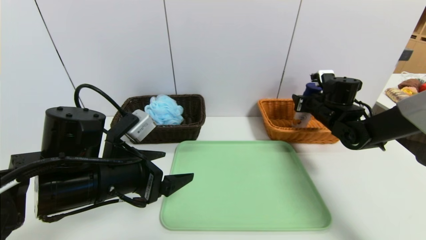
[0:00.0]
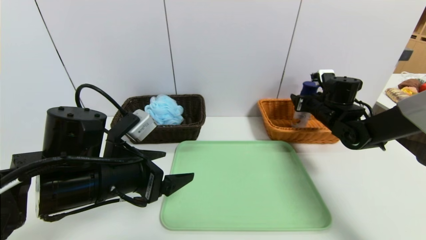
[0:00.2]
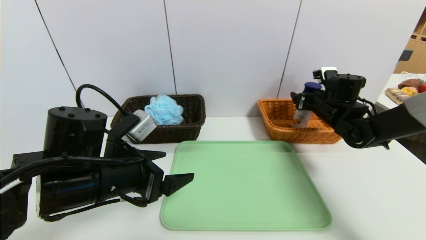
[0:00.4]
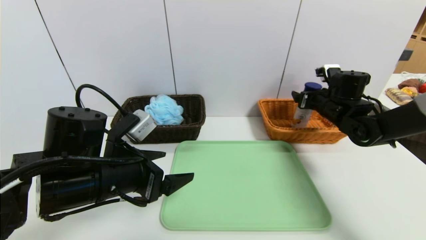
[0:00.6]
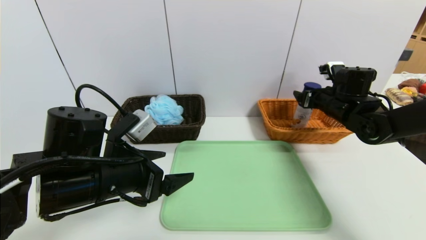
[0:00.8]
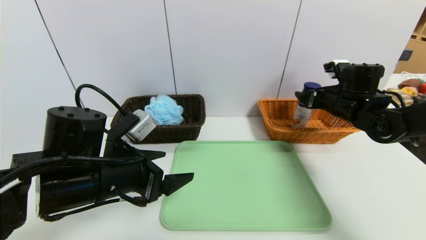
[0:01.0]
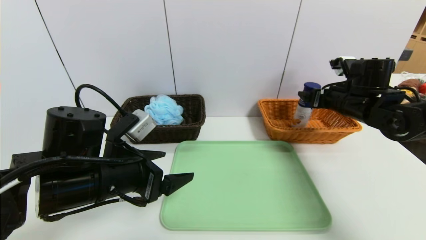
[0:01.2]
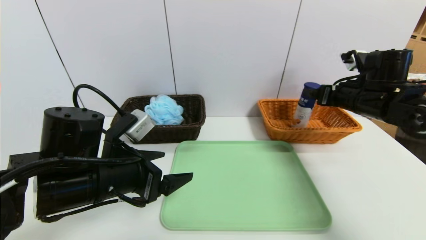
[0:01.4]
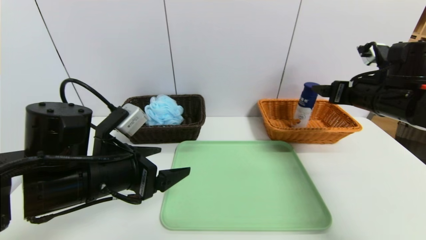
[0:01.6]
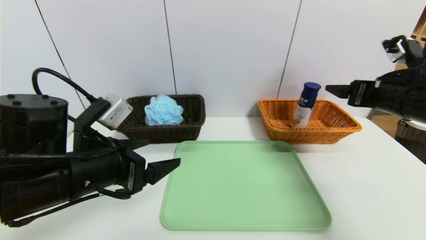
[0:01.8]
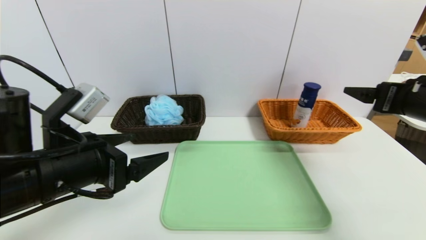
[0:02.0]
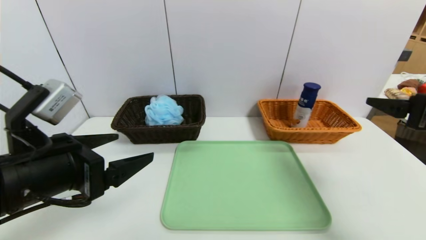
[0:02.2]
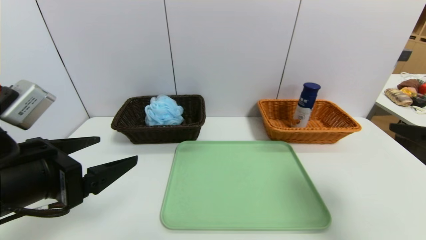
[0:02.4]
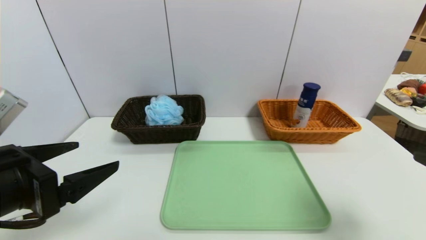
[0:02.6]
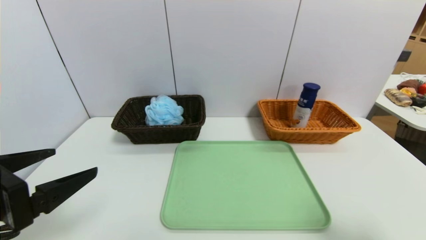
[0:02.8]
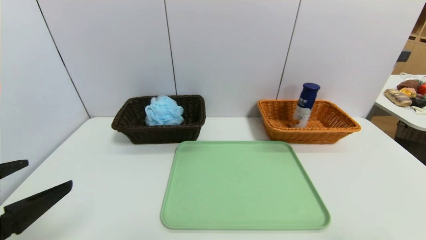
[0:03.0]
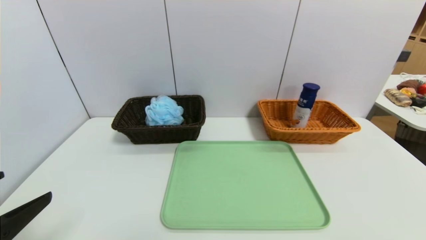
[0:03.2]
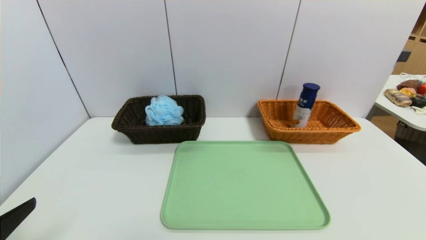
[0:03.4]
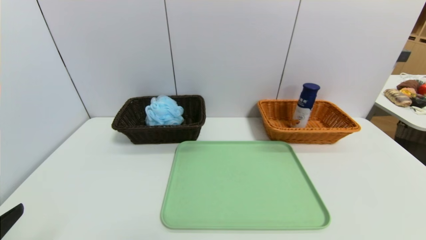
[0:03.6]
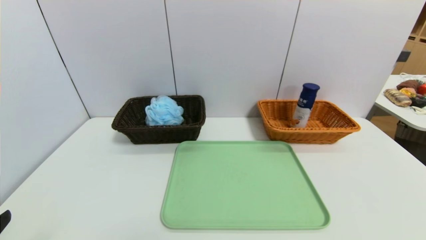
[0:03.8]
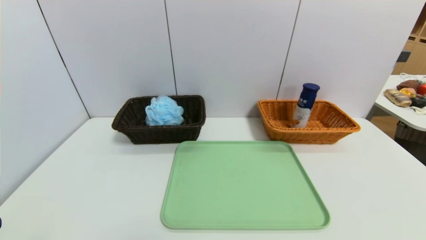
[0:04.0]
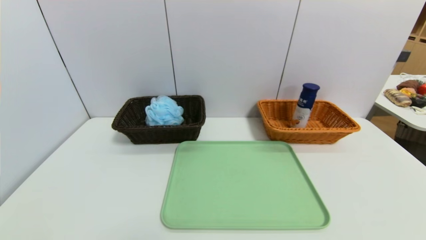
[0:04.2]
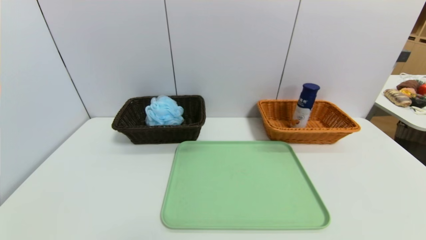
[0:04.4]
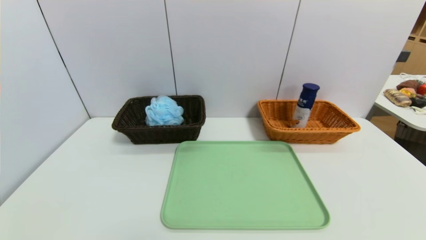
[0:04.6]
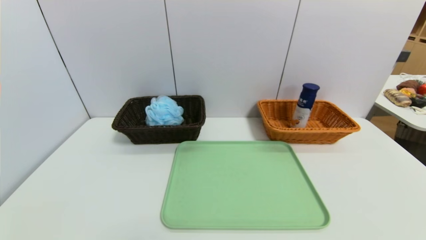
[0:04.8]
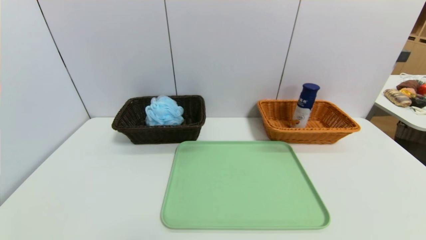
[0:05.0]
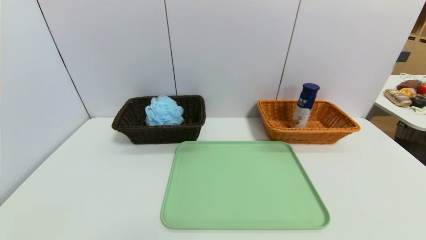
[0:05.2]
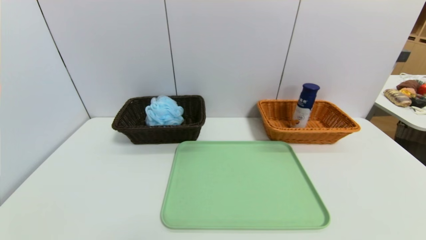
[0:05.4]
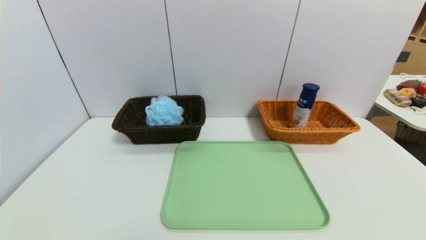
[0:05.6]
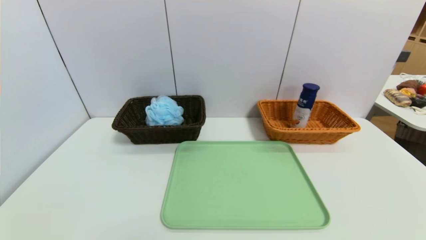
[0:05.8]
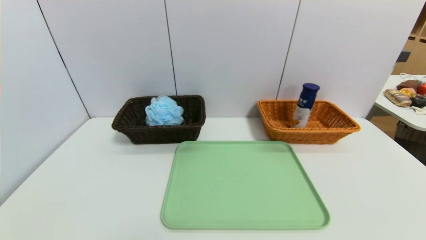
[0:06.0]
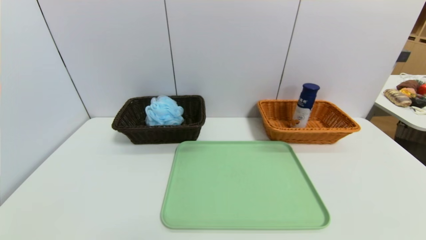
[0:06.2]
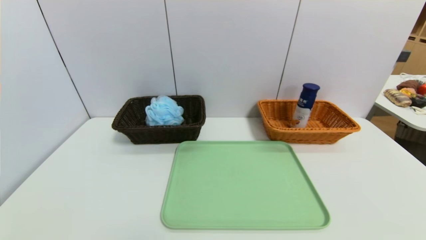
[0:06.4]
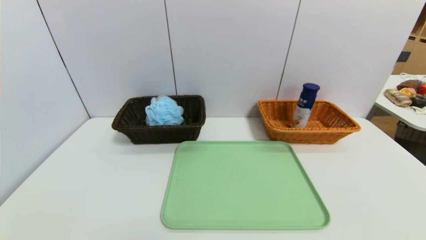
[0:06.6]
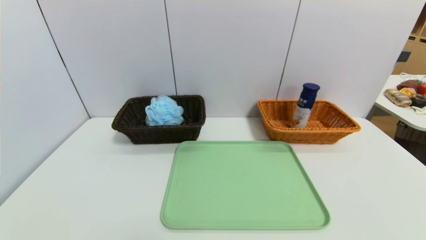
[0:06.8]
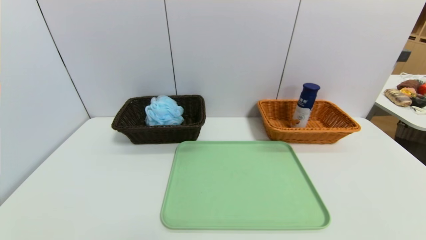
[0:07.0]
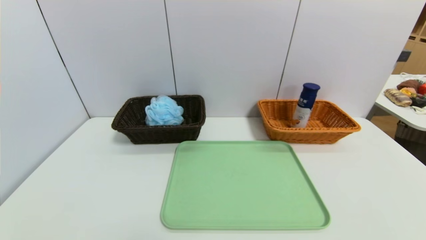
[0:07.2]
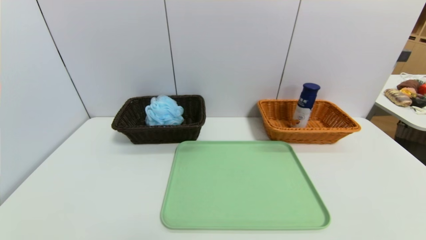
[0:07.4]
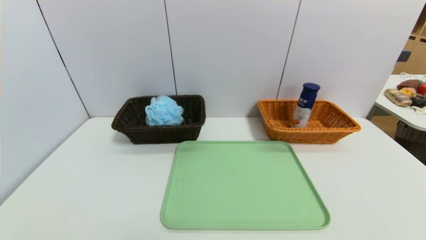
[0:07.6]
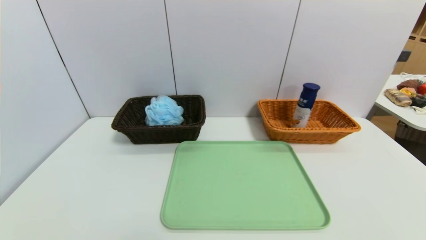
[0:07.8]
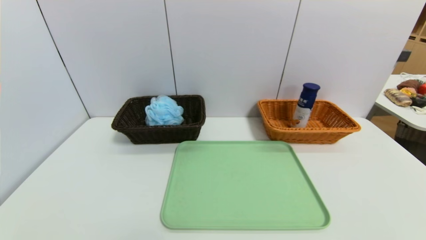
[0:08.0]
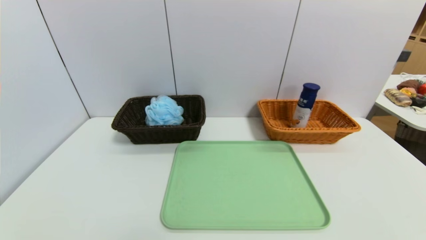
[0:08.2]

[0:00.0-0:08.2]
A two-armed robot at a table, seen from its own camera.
Task of the whole recording: place the food in the right basket with the right gripper, and place the non food items in the left basket with the left gripper.
0:00.0 to 0:01.6: The right gripper travels backward and upward by some 15 cm, and opens.
0:01.6 to 0:03.2: The left gripper travels backward and to the left by approximately 20 cm. The right gripper heads backward, covering some 35 cm.
0:03.2 to 0:05.0: The left gripper moves backward and downward, approximately 10 cm.

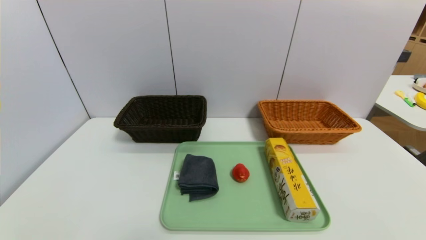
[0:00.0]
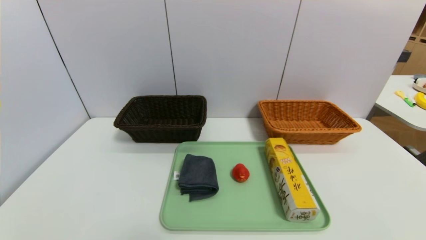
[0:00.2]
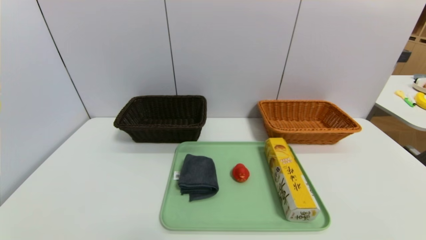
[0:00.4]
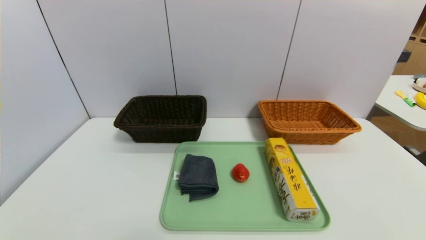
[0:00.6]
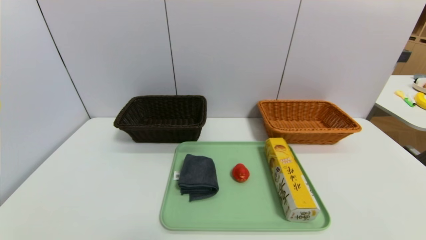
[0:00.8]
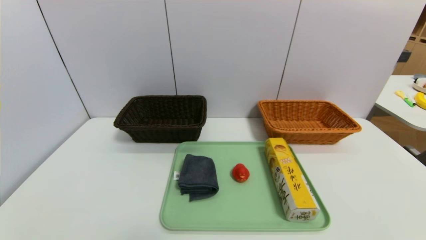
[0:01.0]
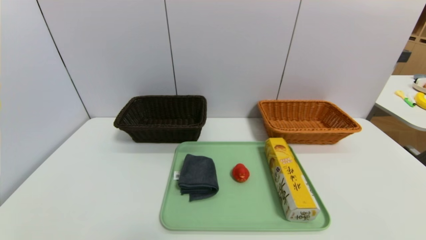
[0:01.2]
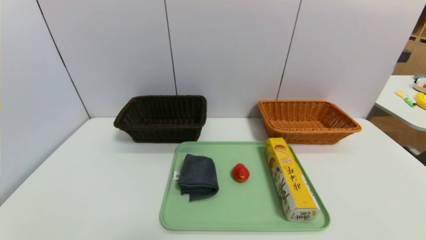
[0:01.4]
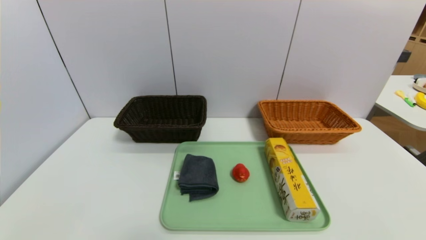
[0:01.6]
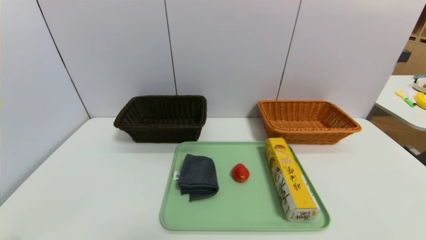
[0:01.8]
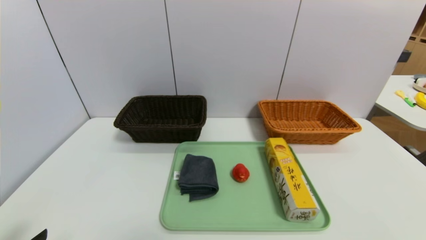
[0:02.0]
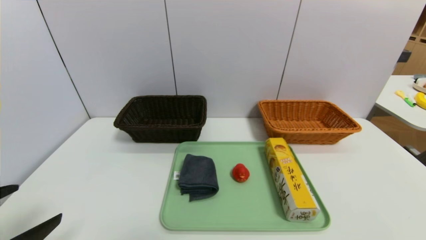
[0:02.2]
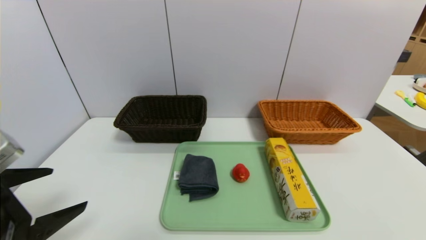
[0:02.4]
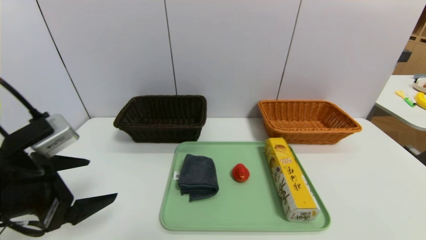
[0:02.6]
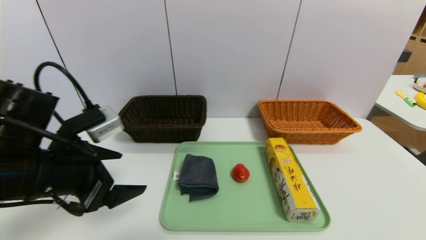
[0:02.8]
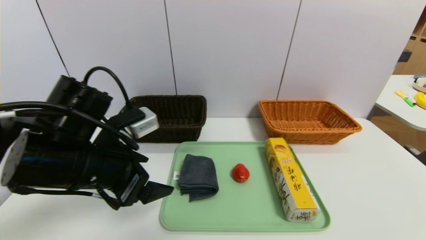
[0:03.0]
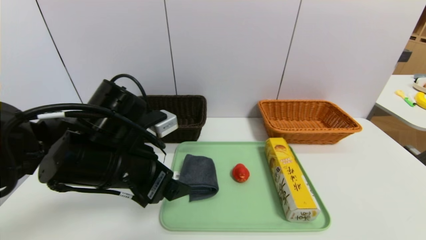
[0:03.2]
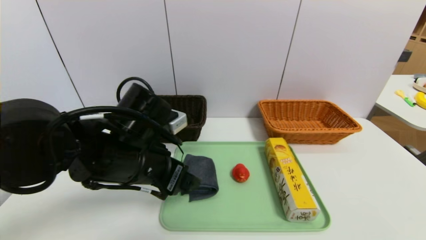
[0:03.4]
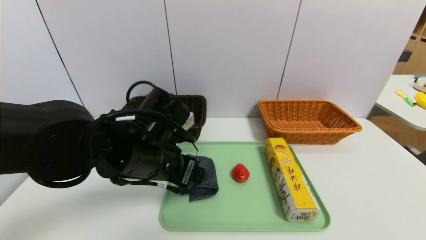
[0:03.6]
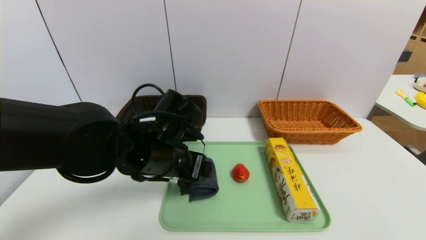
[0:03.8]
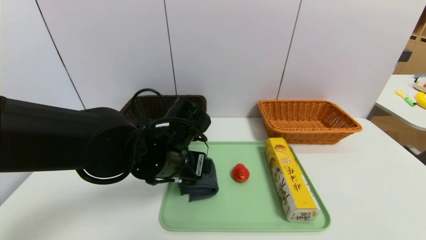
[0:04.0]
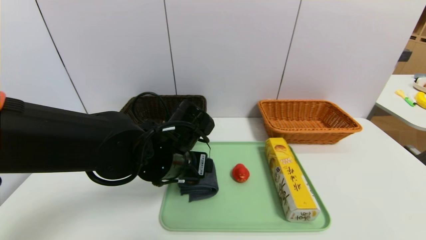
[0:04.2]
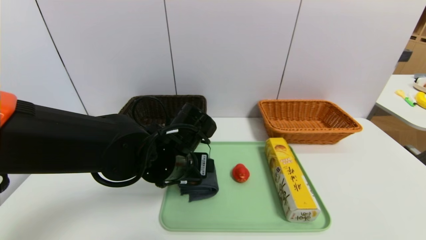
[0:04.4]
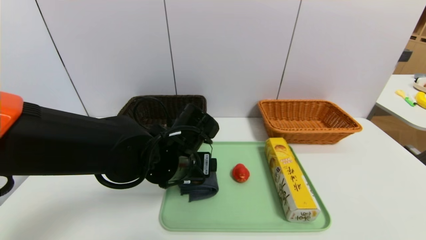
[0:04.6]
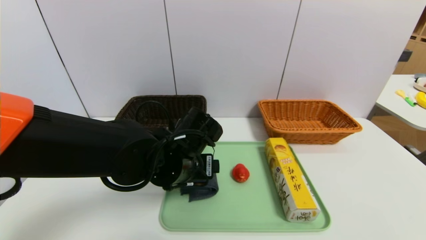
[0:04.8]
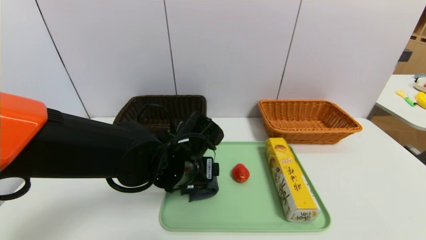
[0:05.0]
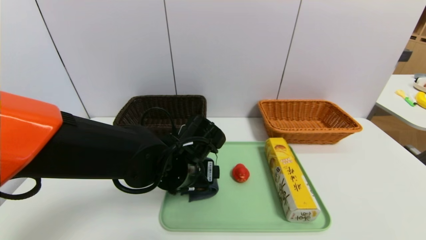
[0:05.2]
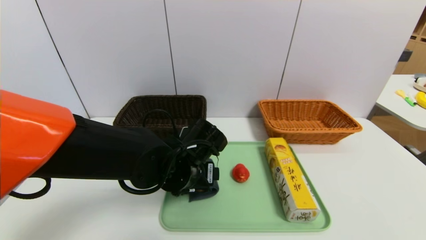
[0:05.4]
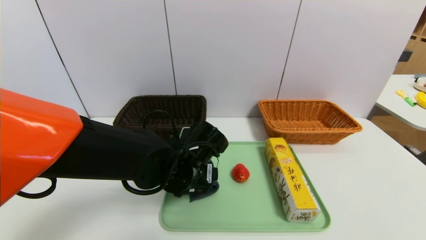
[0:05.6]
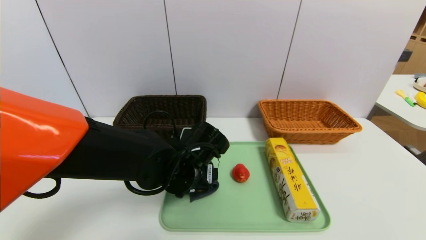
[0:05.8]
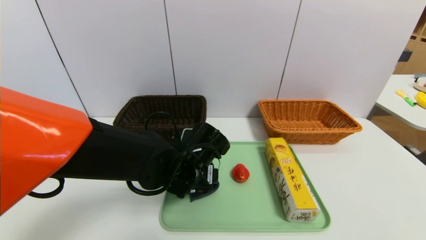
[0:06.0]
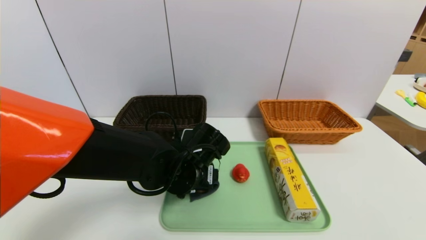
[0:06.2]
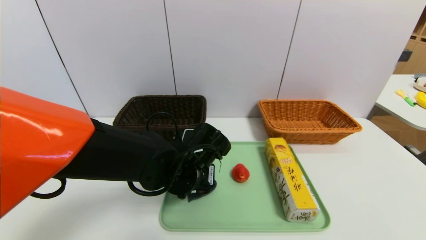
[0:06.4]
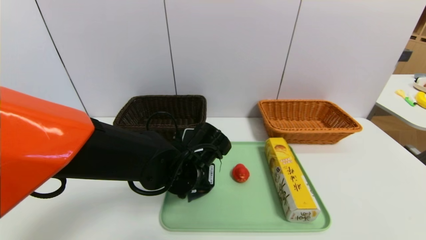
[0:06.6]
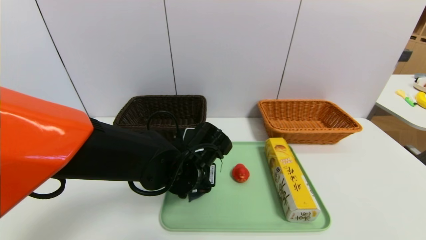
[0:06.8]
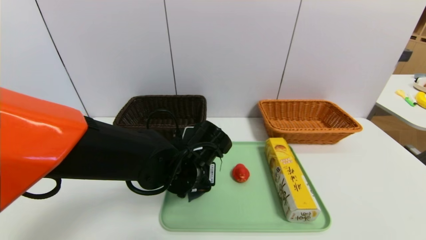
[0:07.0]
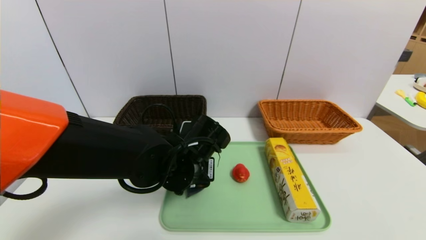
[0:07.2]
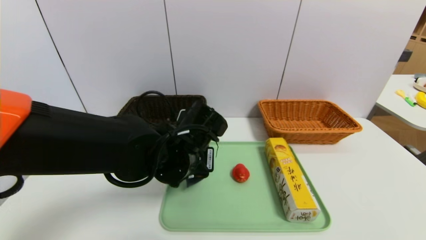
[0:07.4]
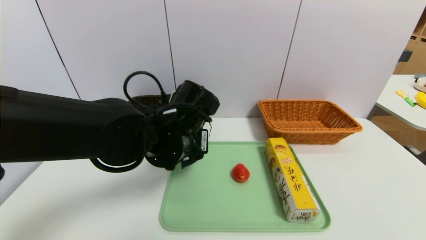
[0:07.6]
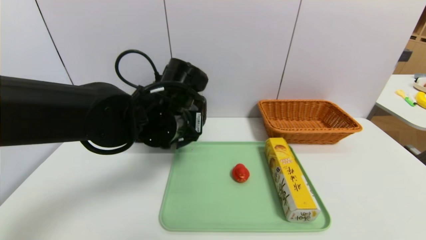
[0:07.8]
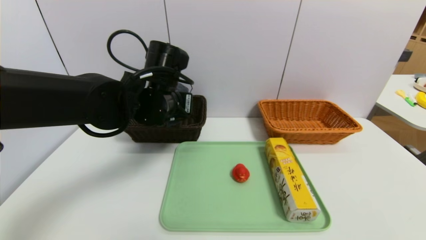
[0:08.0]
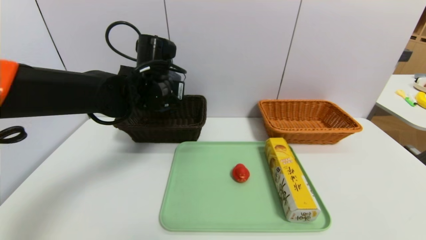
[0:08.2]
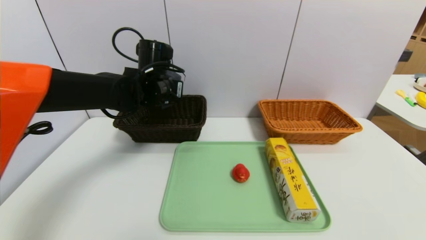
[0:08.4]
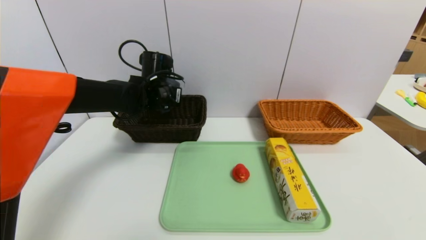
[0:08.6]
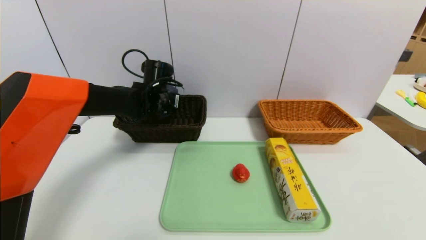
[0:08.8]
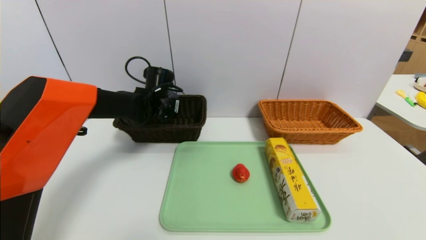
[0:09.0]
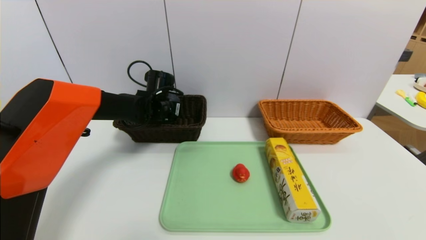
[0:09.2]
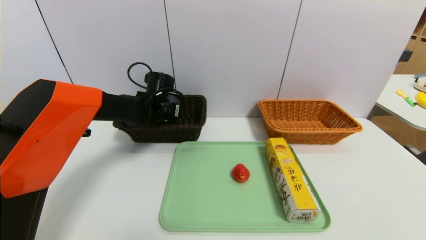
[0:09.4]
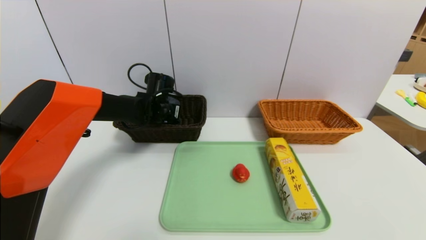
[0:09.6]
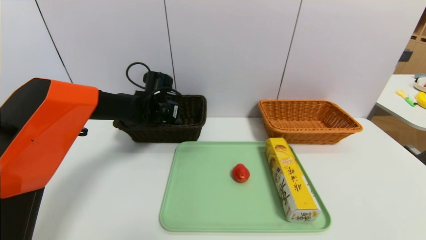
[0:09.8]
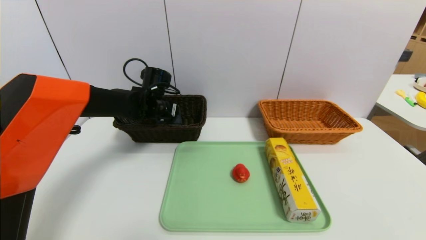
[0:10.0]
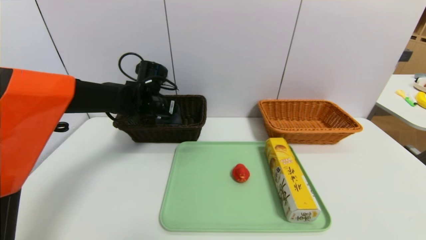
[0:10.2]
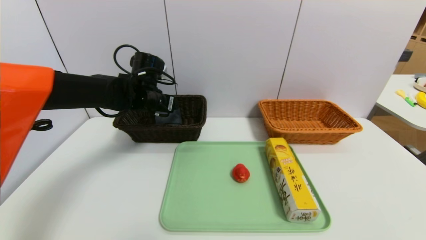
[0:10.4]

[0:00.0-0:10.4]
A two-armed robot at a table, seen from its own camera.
Task of the whole recording: place the food in the right basket with the right gripper, and place the non food items in the left basket with the left gripper.
Step, 0:00.0 to 0:10.2: Grasp the grey towel and put it in the left basket.
0:00.0 to 0:01.4: Both grippers stay about where they are.
0:01.4 to 0:03.0: The left gripper is displaced forward, upward and to the right by approximately 30 cm.
0:03.0 to 0:04.4: The left gripper travels to the right, forward and downward by roughly 15 cm.
0:04.4 to 0:06.0: The grippers move only a little.
0:06.0 to 0:07.4: The left gripper closes.
0:07.4 to 0:09.0: The left gripper travels forward and to the left by roughly 20 cm.
0:09.0 to 0:10.4: The left gripper shifts by about 5 cm, and opens up.
